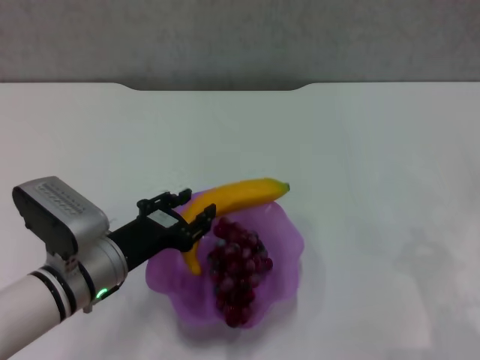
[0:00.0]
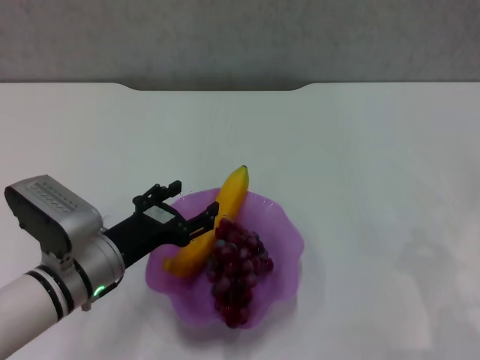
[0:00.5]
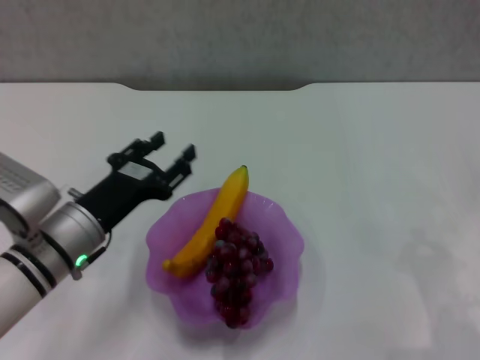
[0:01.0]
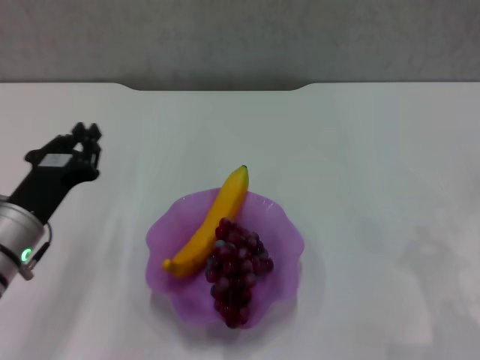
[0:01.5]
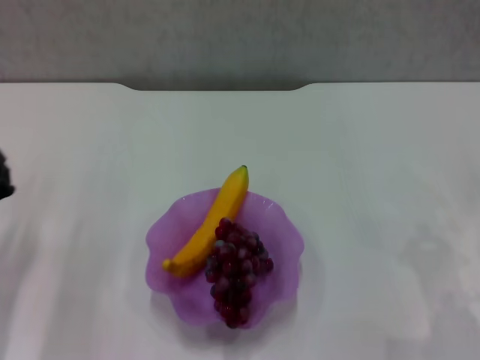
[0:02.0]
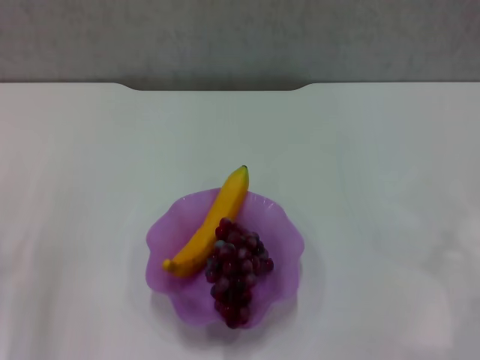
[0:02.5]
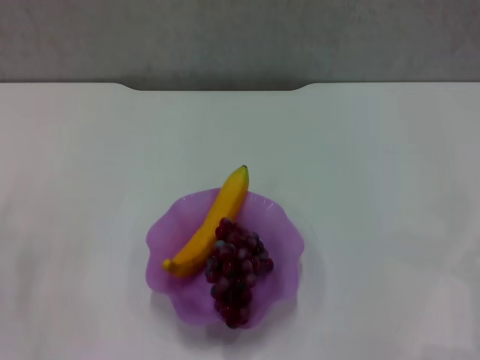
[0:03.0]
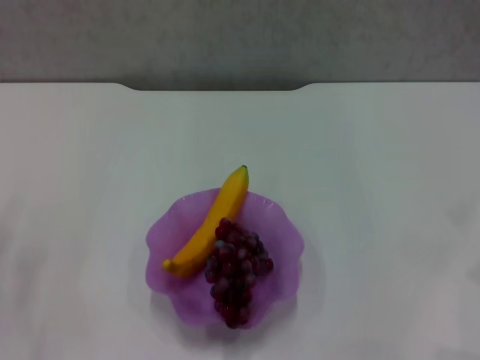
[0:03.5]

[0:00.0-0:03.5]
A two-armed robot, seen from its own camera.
0:00.0 to 0:02.0: The left gripper is displaced to the left by about 10 cm, and opens, then closes once more.
